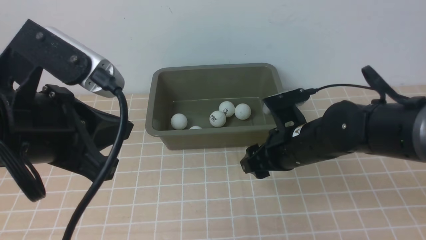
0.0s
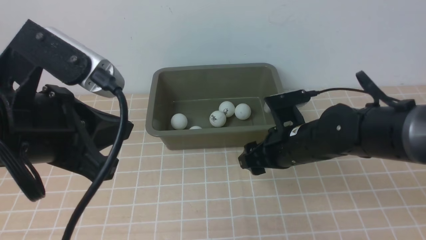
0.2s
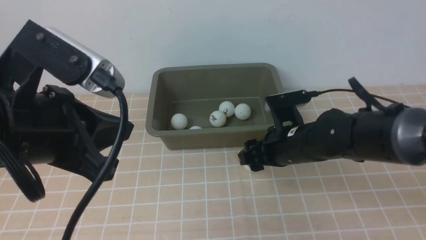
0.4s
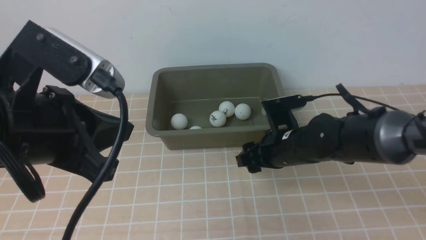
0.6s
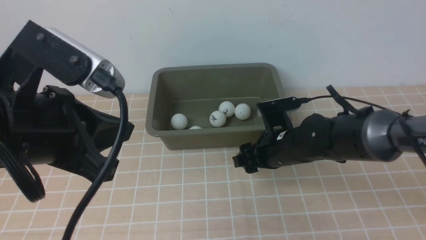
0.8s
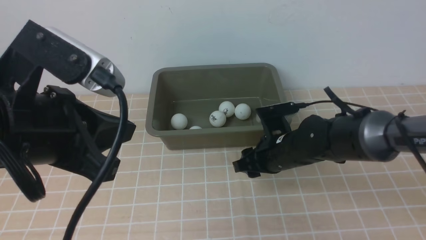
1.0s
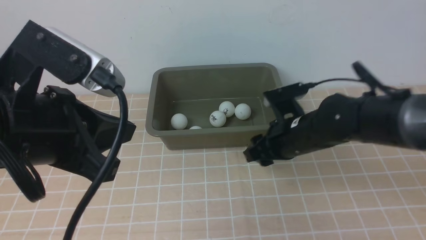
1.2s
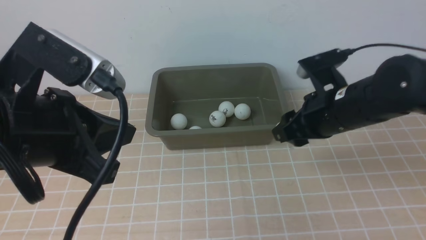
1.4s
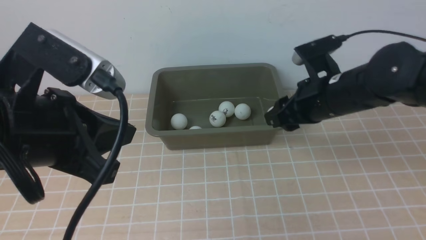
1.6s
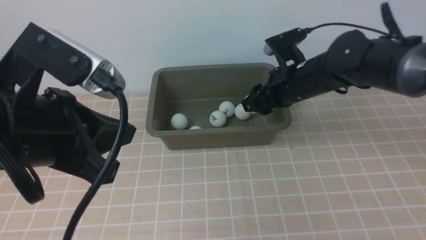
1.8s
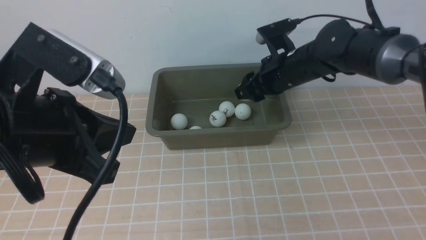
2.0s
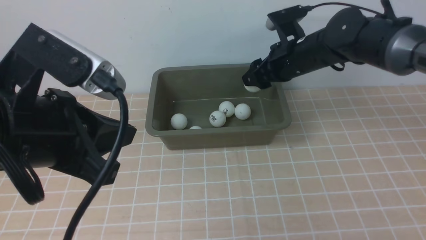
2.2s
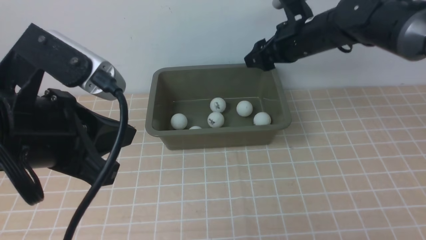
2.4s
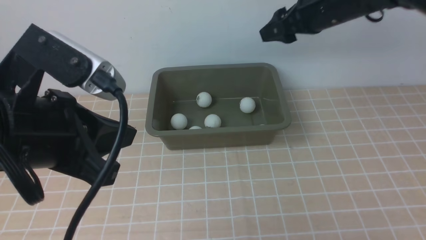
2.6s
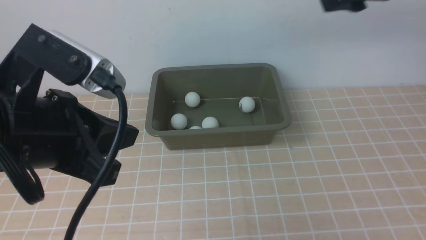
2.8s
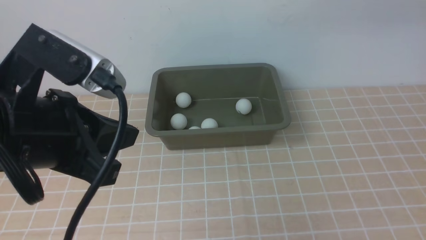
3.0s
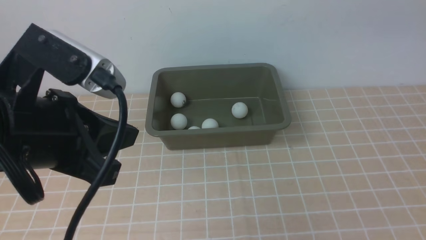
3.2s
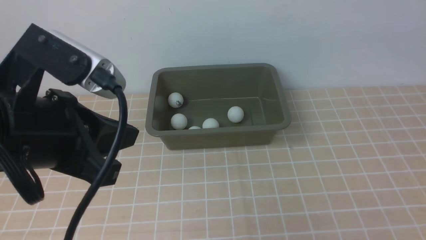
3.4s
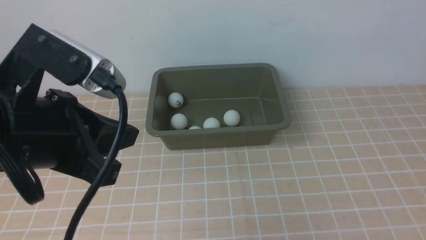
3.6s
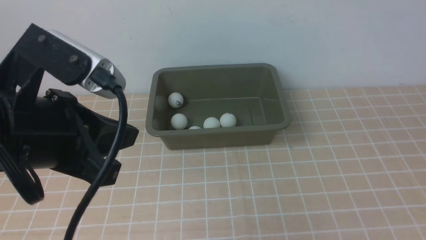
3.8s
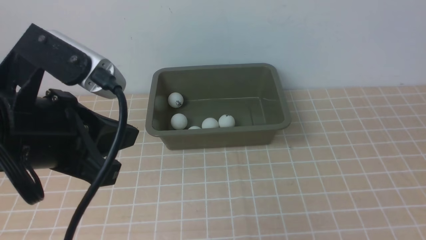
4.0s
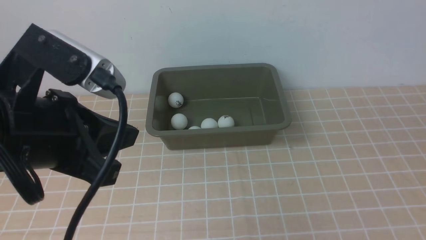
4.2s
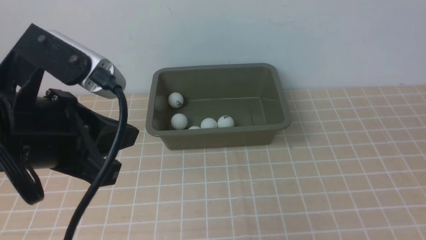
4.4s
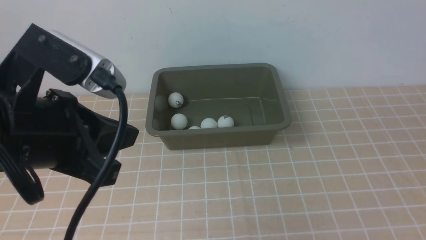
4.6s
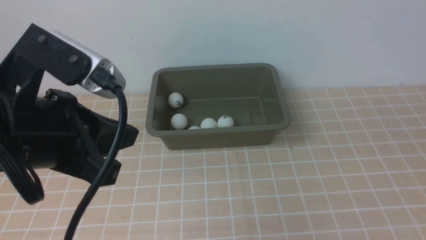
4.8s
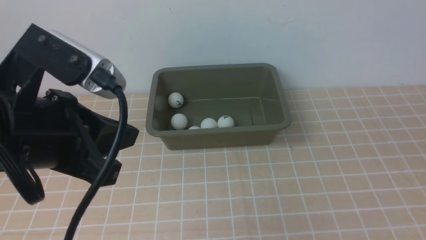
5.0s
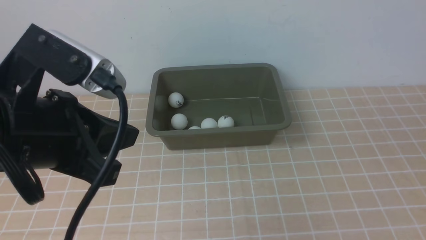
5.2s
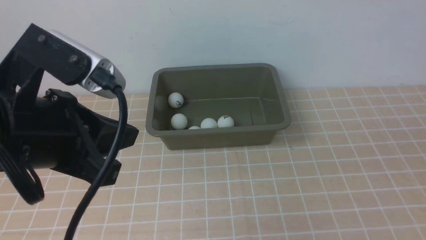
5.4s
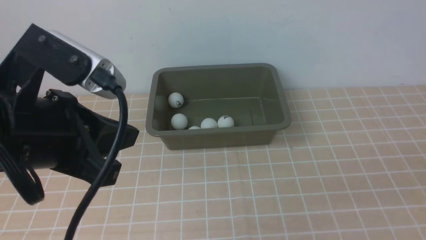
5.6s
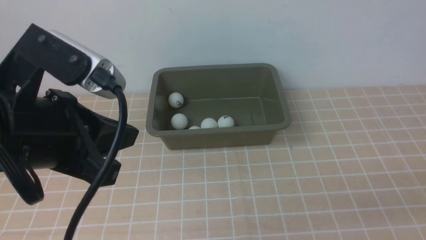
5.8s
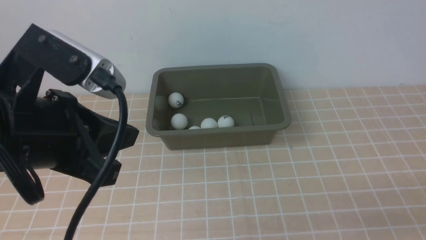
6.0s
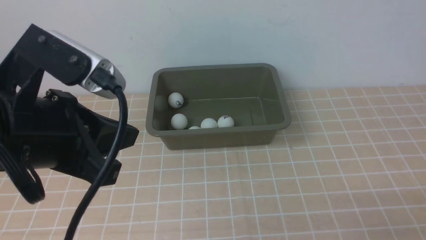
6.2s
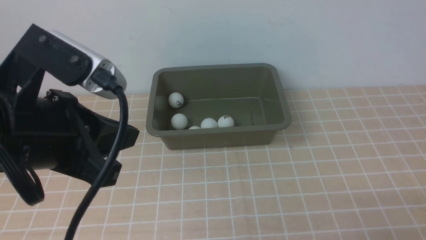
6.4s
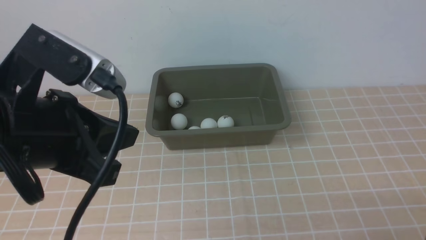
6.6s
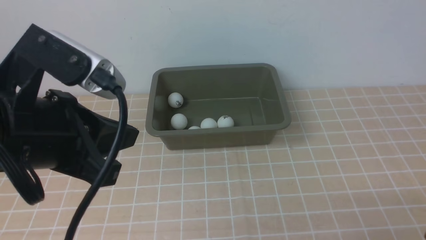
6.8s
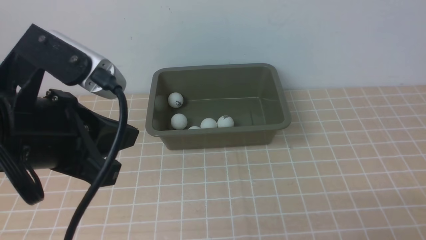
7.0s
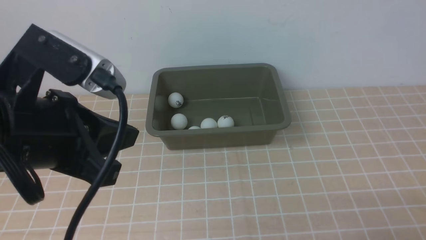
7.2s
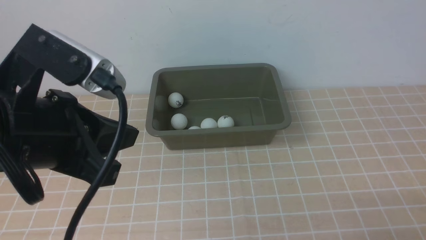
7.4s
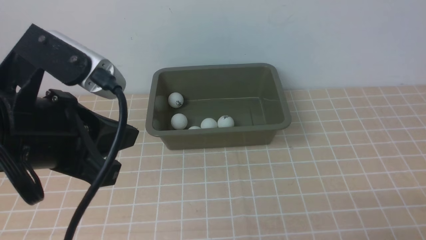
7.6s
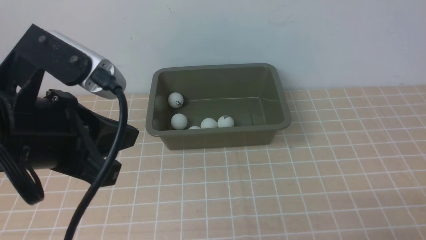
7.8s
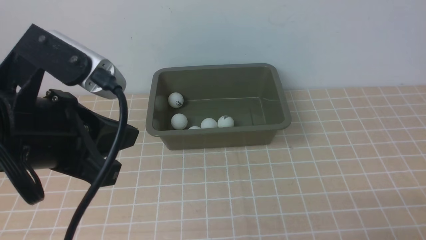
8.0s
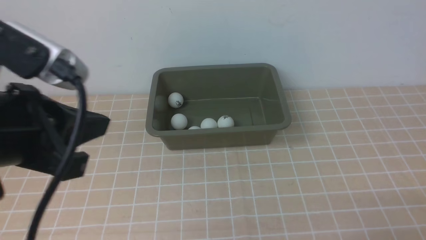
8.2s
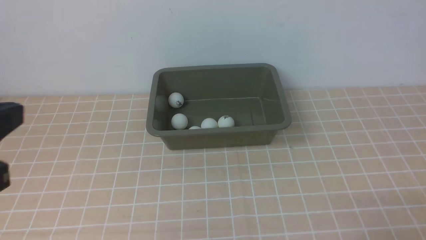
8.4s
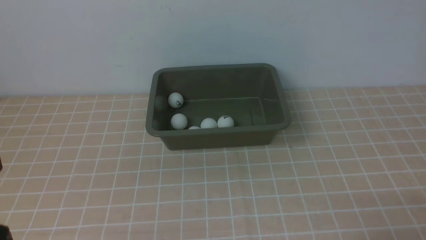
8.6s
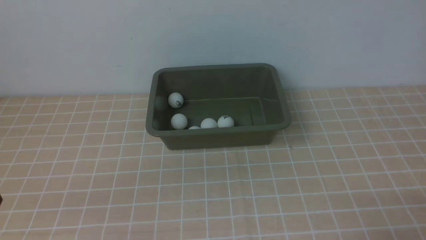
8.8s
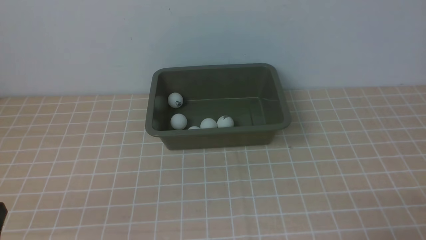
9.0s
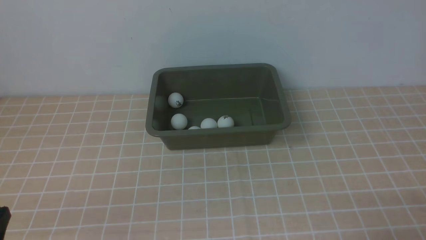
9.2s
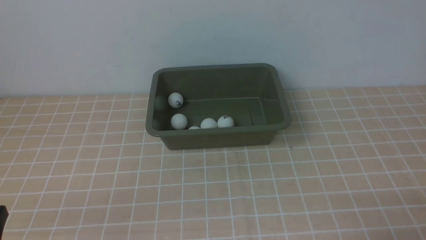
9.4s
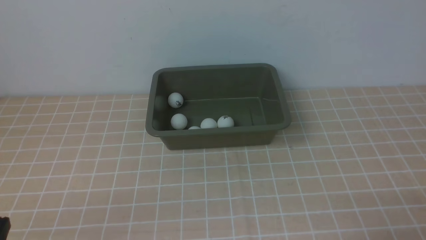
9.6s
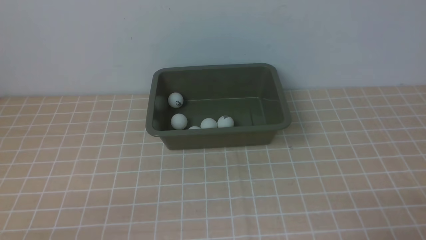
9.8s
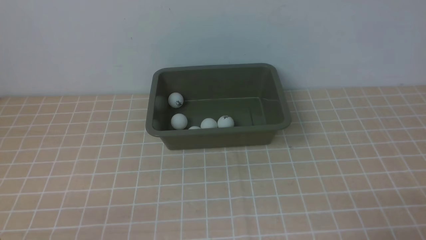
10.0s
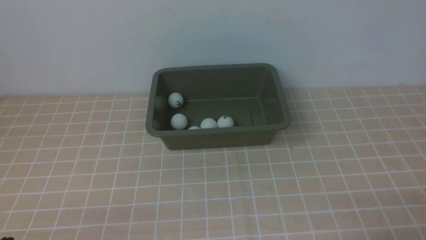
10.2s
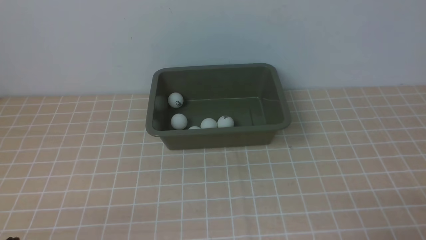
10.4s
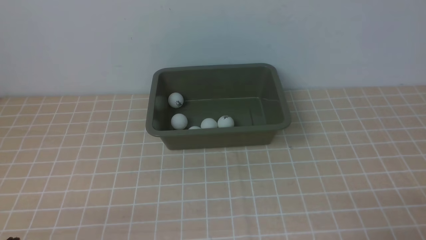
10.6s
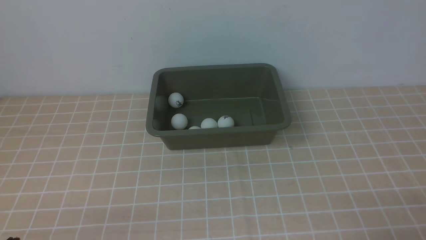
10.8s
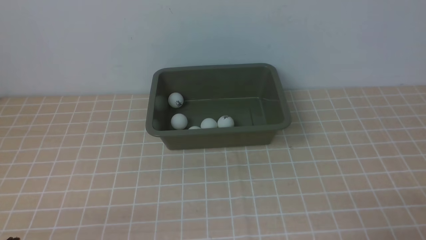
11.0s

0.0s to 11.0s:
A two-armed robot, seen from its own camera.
Step, 1.4s to 2.4s: use the right arm to put the table tennis ball into the box.
0.0s to 1.6s: The right gripper heads upward and forward, covering roughly 10 cm.
1.6s to 3.2s: The right gripper travels upward and to the right by about 30 cm.
7.8s to 9.4s: The left gripper moves downward, backward and to the left, approximately 20 cm.

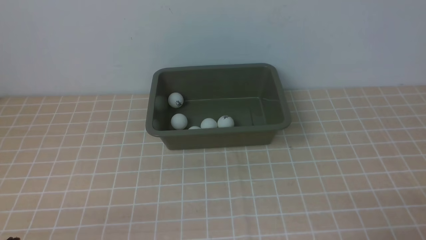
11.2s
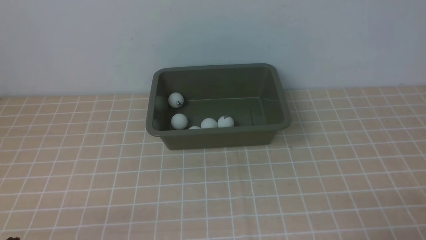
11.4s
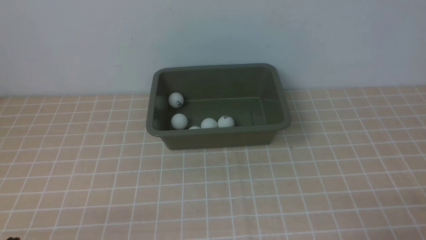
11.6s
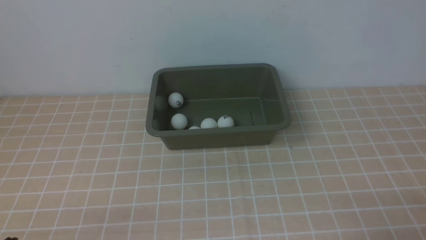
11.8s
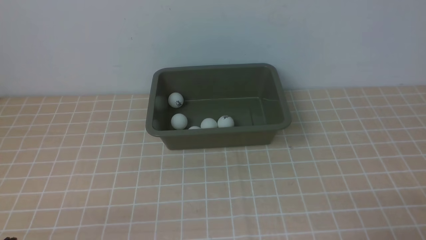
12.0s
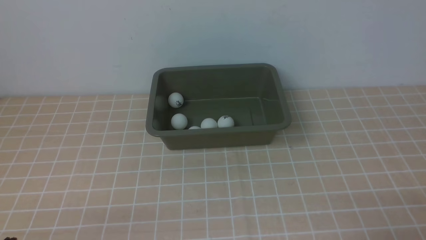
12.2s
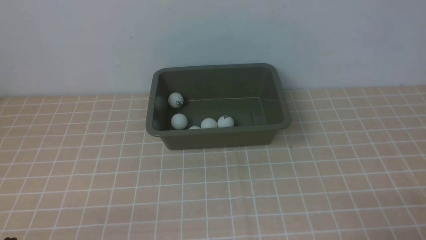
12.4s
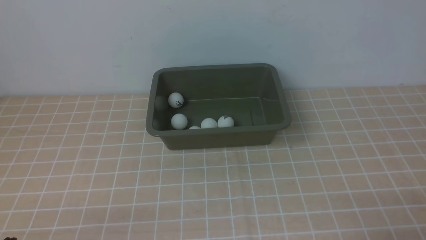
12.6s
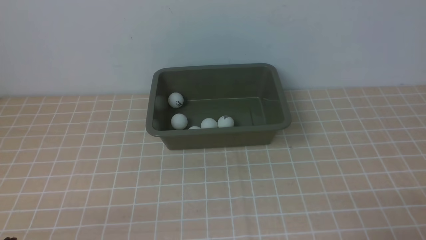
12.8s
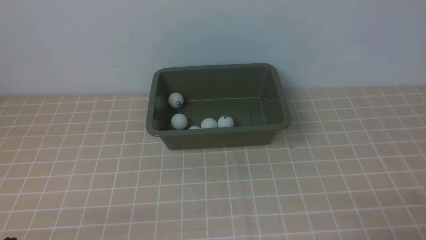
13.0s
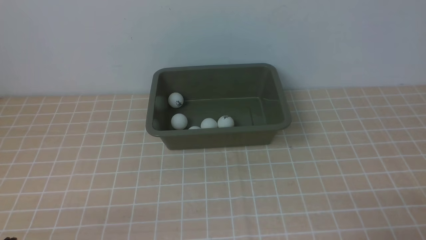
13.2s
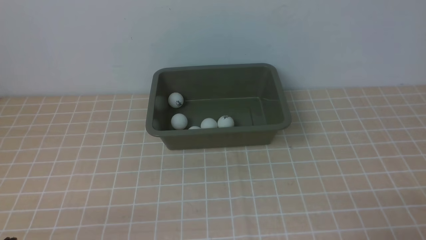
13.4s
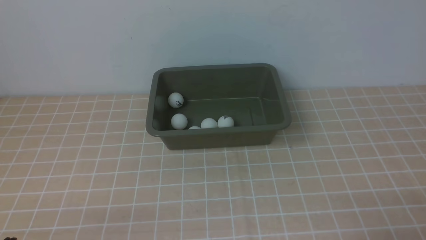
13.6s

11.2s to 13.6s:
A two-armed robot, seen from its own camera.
11.2s to 13.6s: Both grippers stay about where they are.

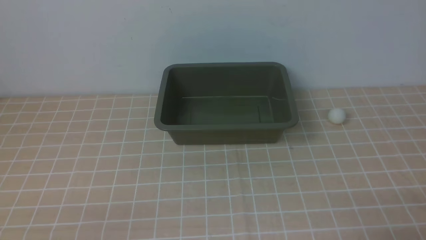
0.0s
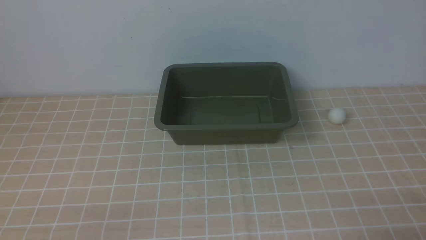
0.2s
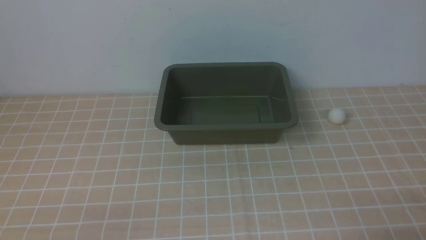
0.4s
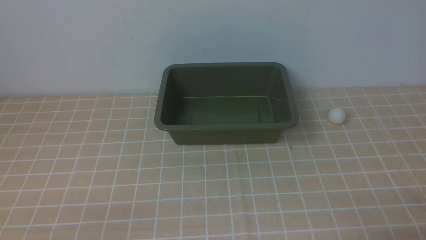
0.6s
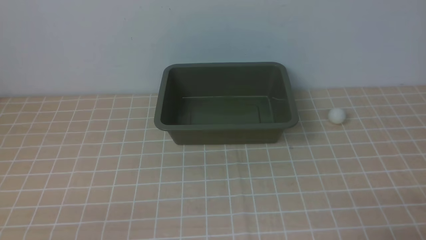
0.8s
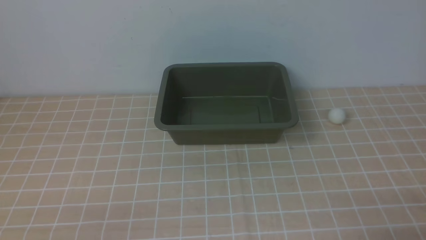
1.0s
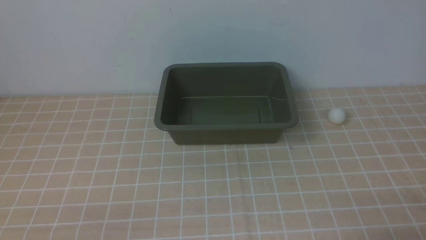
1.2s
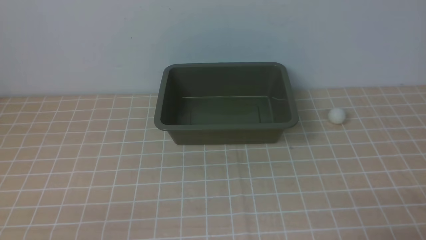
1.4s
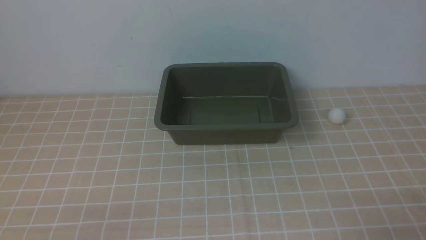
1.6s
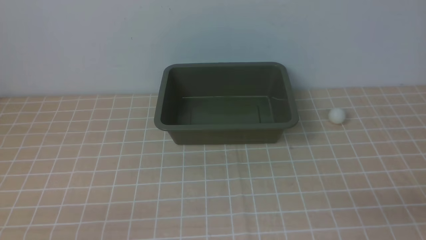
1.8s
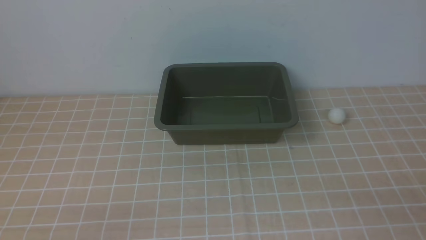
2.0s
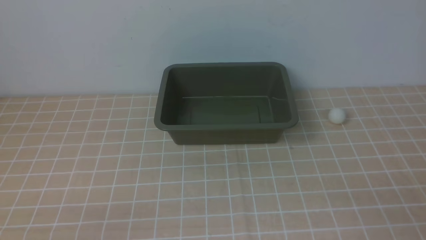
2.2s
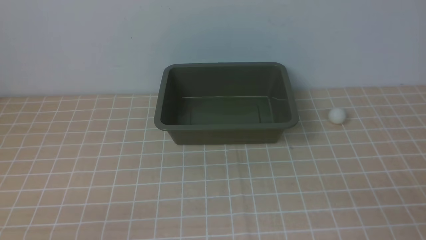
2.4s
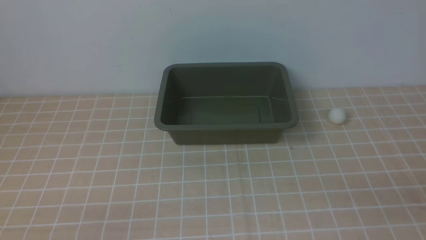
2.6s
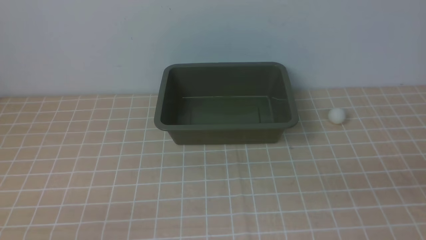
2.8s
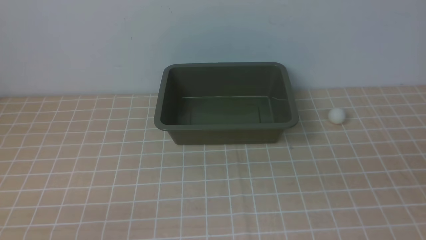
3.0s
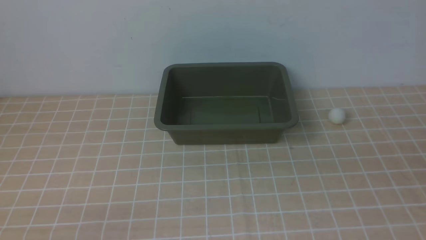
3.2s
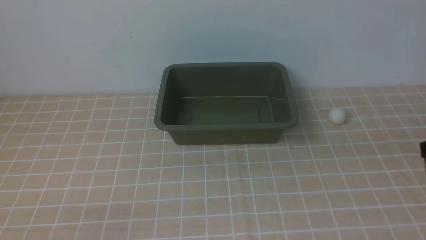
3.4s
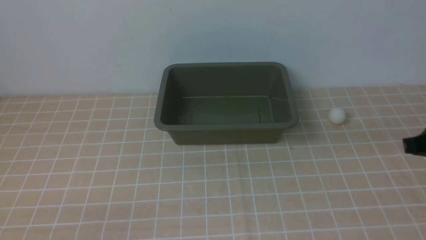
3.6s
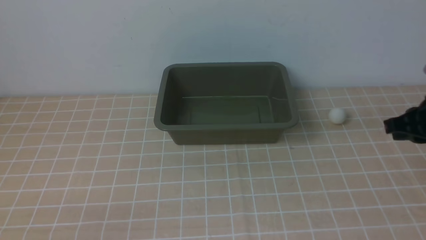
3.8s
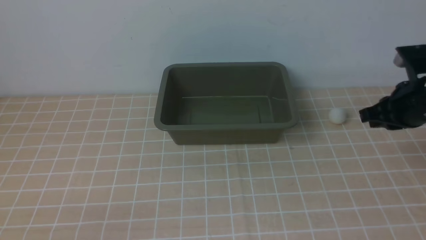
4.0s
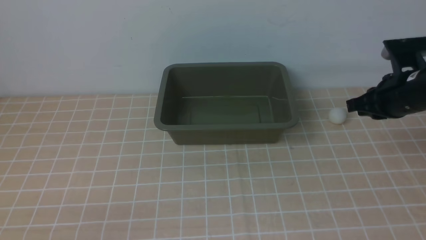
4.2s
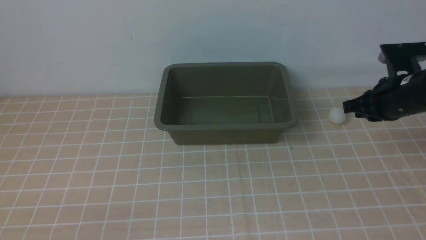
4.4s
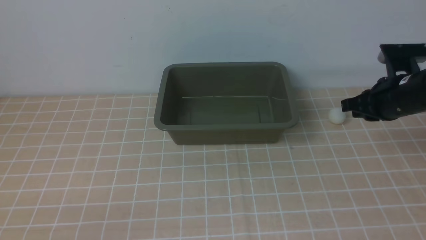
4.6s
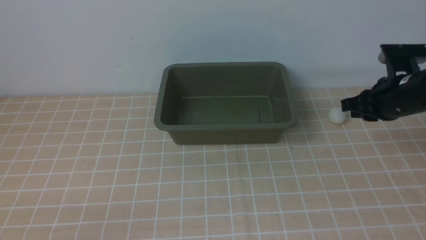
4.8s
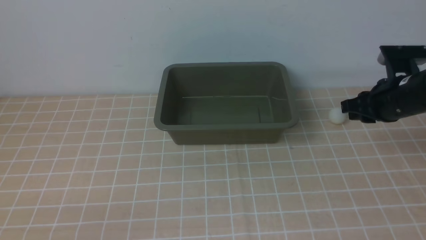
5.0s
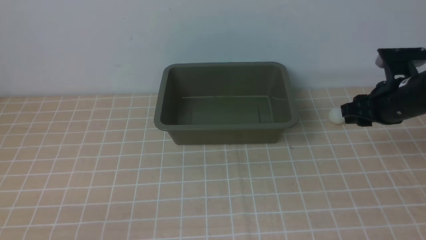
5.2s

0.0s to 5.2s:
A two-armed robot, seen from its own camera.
3.4s to 5.2s: The right gripper travels forward by approximately 20 cm, and opens up.
